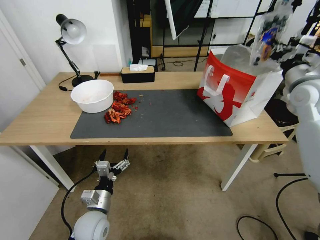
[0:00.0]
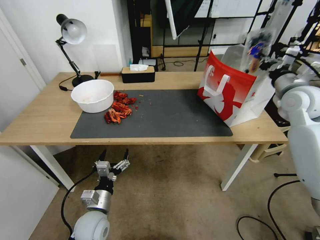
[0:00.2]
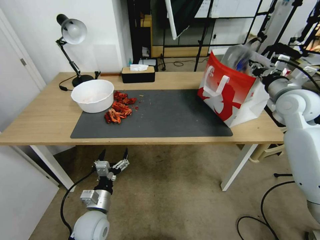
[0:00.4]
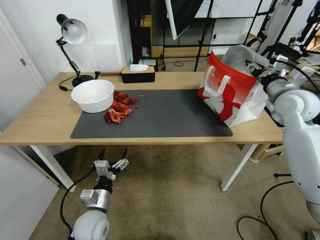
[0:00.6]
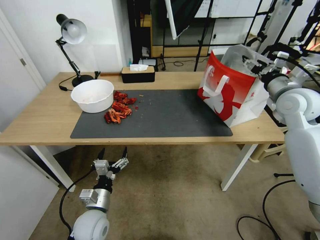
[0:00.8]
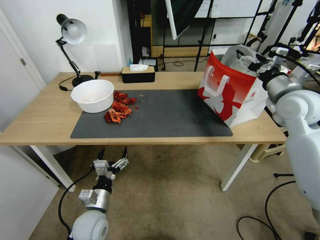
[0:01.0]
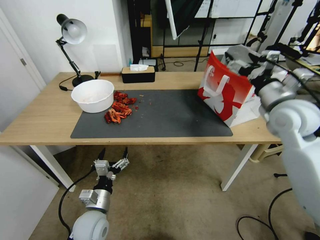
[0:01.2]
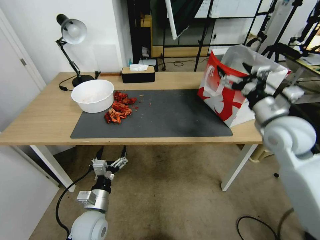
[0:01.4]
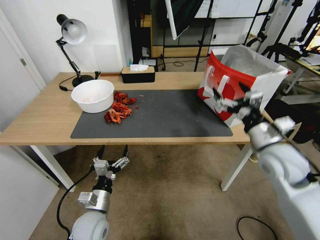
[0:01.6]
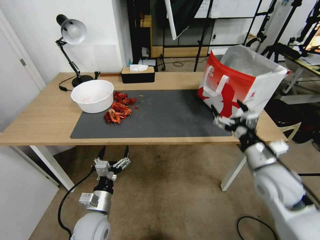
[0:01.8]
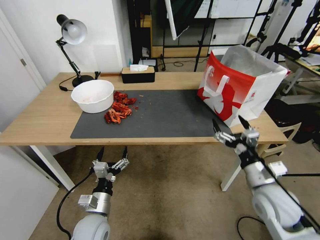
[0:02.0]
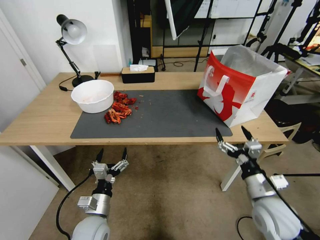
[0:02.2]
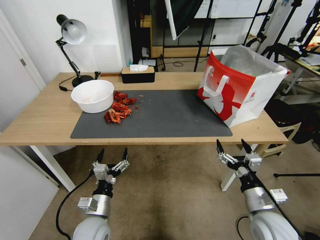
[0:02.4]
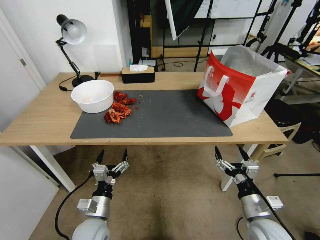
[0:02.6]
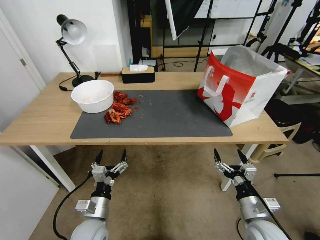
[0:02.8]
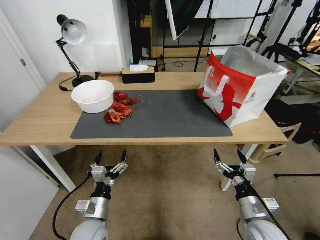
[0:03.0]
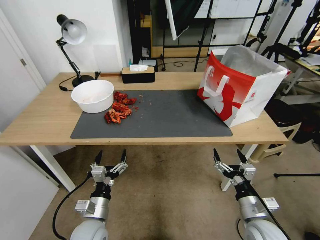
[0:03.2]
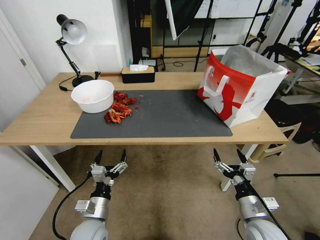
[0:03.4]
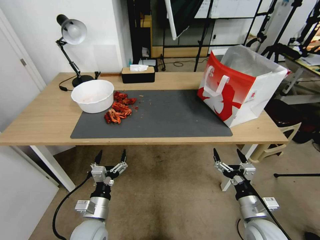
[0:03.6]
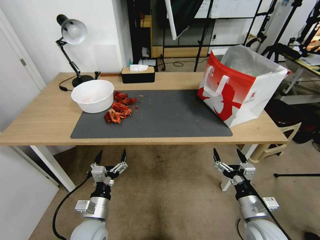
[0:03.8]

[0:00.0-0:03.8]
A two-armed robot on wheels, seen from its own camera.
Task of the whole recording: Close the takeout container lid, then place the container into the takeout bag.
0:00.0 to 0:01.2: The right gripper travels to the left and backward by approximately 10 cm, and opens.
0:01.2 to 0:02.6: The right gripper is displaced downward and backward by approximately 35 cm.
0:02.6 to 0:03.8: The grippers move only a little.
